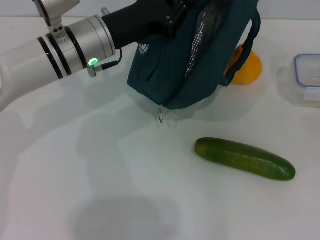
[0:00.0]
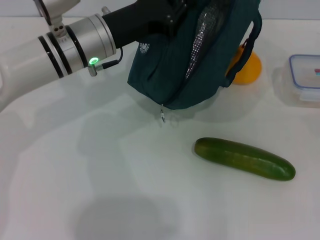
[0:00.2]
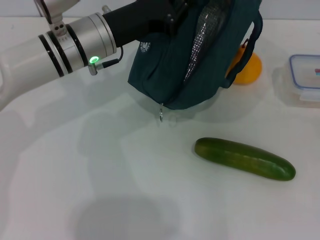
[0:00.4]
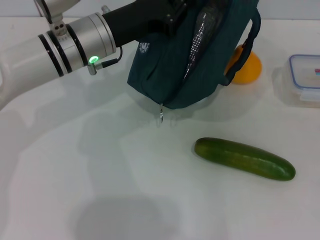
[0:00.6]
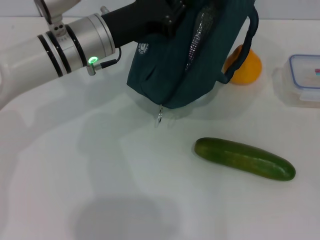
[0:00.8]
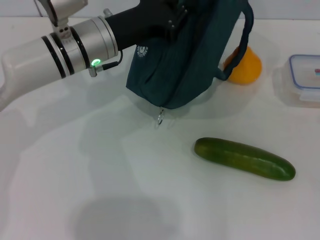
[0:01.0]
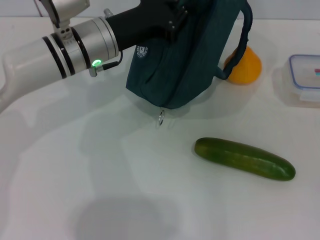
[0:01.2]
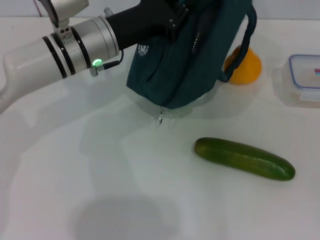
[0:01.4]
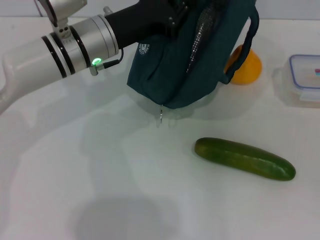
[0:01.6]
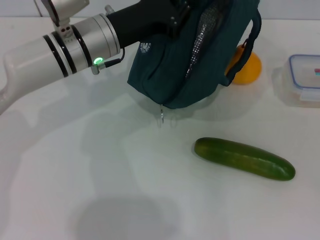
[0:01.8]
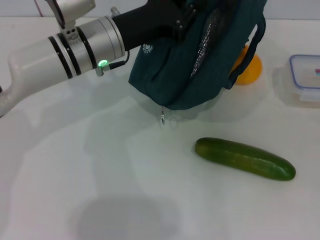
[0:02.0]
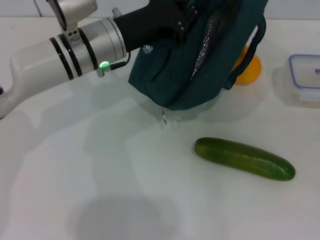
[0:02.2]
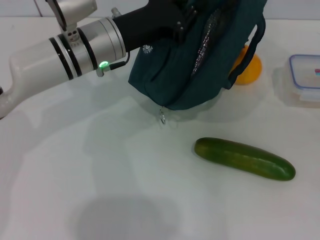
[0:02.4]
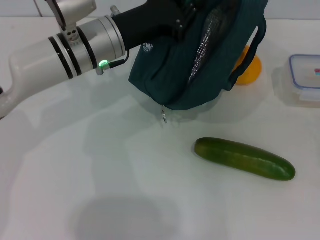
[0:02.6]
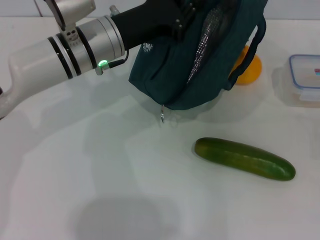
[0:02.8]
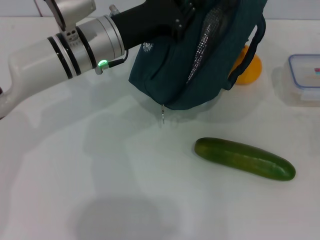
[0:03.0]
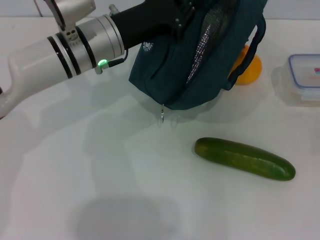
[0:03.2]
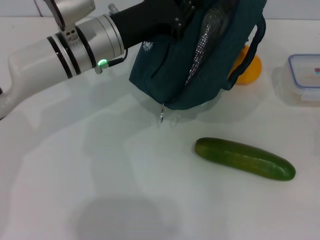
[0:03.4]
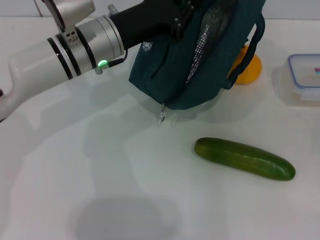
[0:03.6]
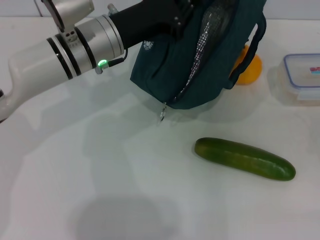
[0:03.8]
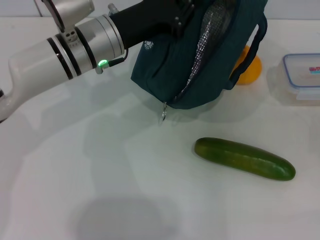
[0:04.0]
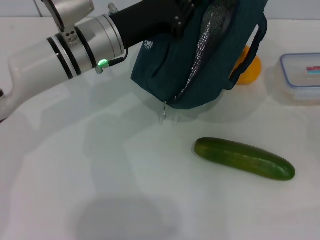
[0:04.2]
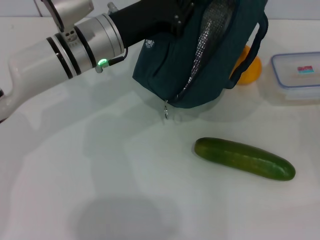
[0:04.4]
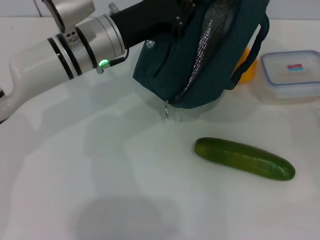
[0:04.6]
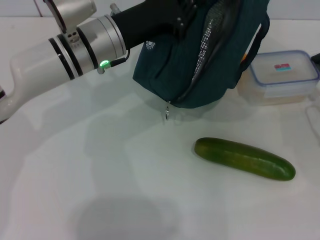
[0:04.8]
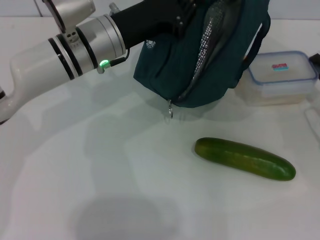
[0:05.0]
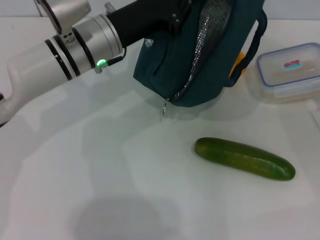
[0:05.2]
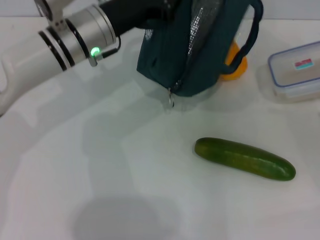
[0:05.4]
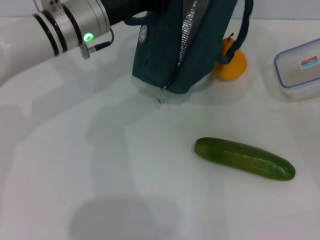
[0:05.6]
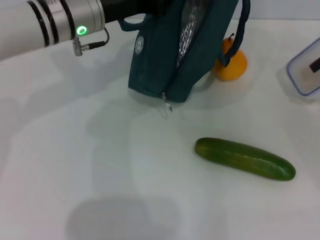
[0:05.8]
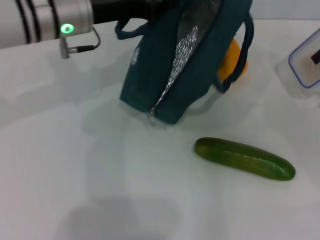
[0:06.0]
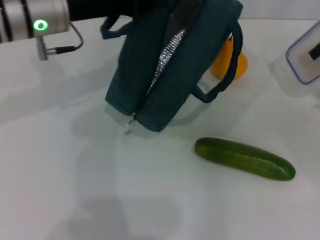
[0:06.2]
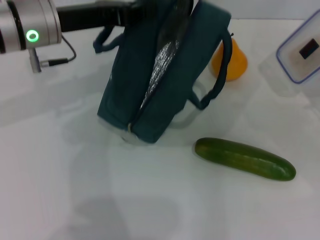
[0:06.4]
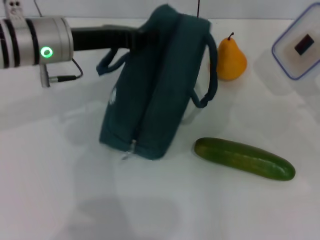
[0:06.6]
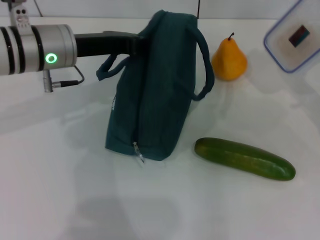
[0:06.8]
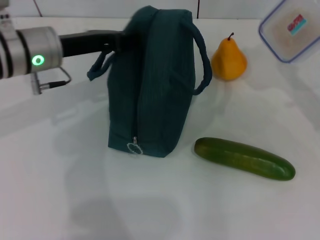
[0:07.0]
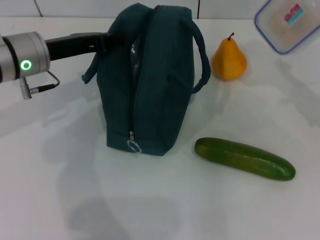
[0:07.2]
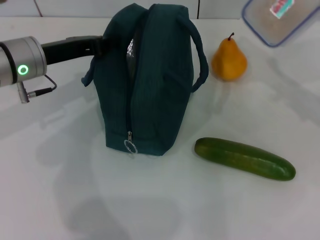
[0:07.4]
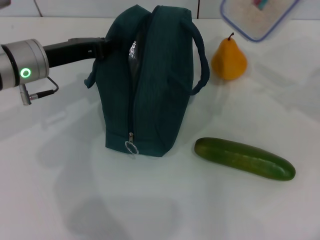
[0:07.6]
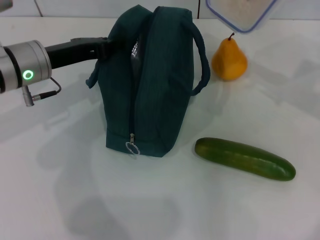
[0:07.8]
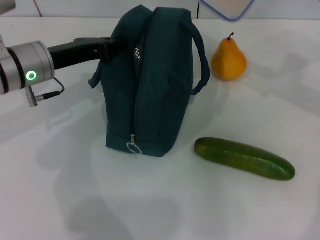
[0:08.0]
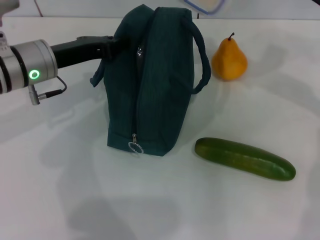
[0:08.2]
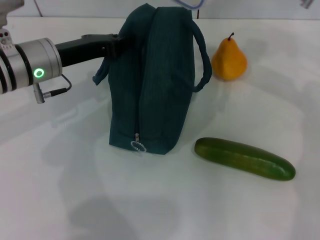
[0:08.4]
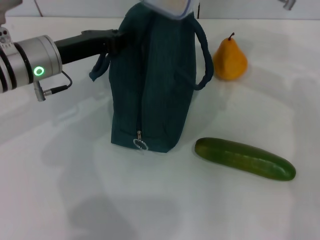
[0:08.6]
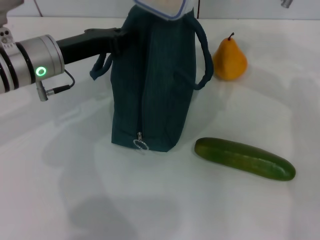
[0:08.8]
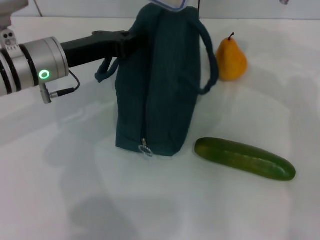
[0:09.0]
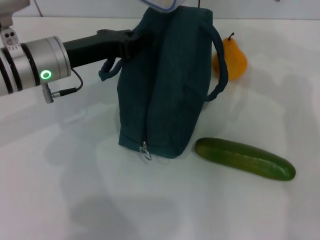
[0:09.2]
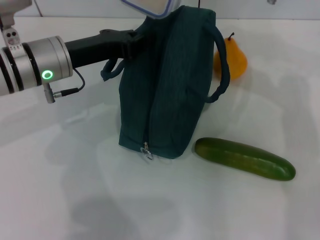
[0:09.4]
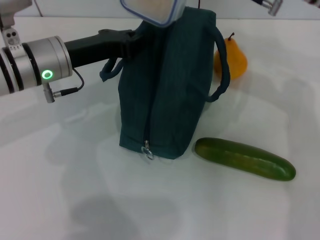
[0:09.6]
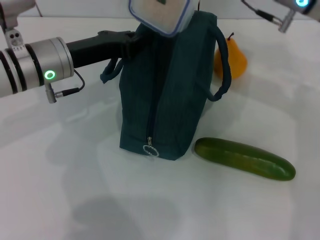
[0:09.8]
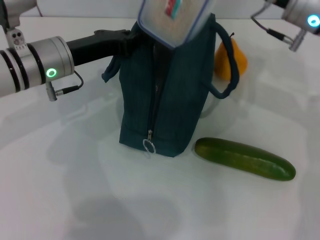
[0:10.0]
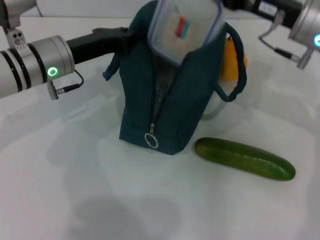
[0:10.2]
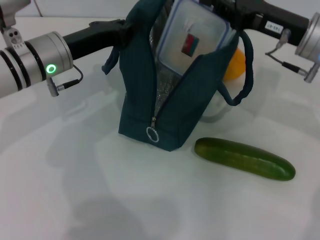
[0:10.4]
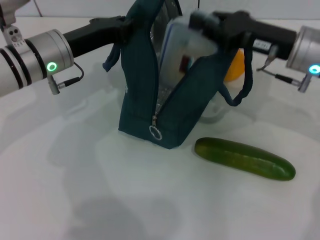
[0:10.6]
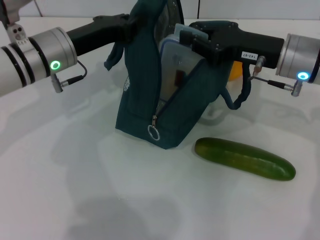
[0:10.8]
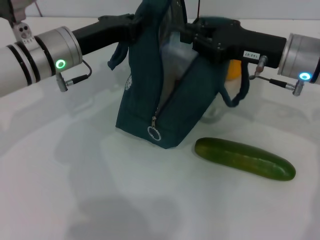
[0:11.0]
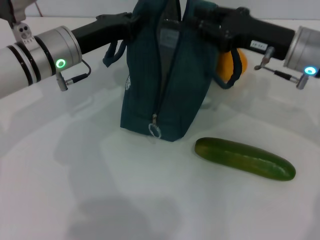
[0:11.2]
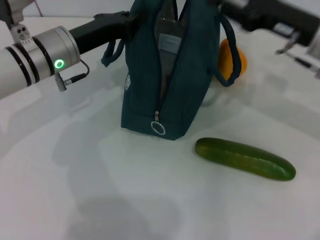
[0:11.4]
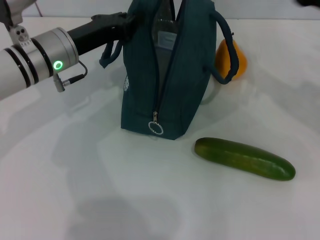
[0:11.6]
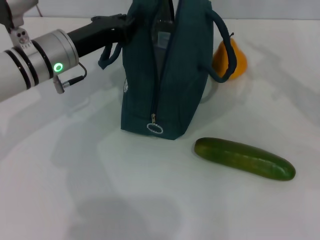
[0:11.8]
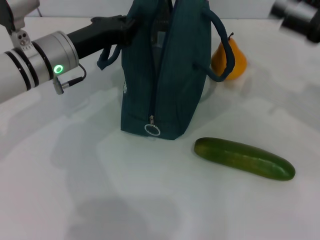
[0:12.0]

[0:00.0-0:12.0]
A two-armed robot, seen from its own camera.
Step, 0:00.0 to 0:05.4: Pick up the lunch box with your right hand.
Step, 0:05.6 to 0:11.4: Place the lunch box into the lunch bag with your right hand.
0:00.0 to 0:01.6: The right gripper heads backward, covering about 10 cm, and opens its fingers.
0:01.6 to 0:03.0: The right gripper goes roughly 10 cm forward.
0:03.0 to 0:04.4: The right gripper closes up.
0:04.4 to 0:06.0: The left gripper moves about 5 cm.
0:06.0 to 0:07.6: The right gripper shifts some 10 cm upward and to the left; the left gripper shifts about 10 cm to the left and downward.
0:07.6 to 0:09.0: The right gripper moves to the left, upward and forward, roughly 15 cm.
0:09.0 to 0:10.4: The right gripper is displaced downward and backward by roughly 10 cm.
0:10.4 to 0:12.0: The right gripper travels to the right by approximately 10 cm, and opens.

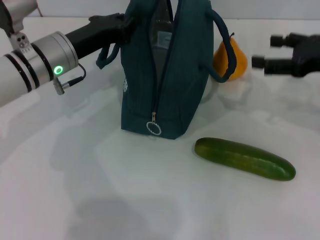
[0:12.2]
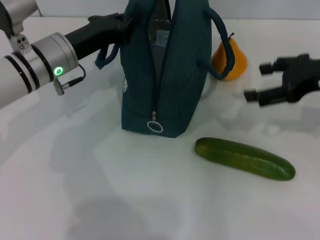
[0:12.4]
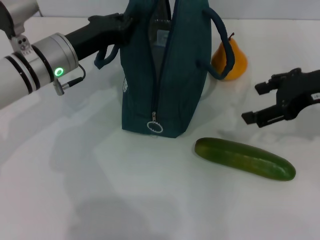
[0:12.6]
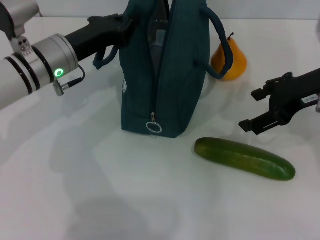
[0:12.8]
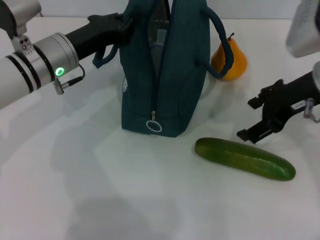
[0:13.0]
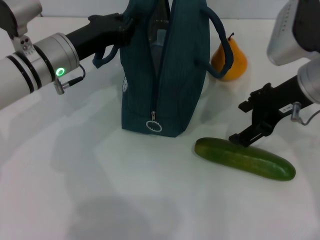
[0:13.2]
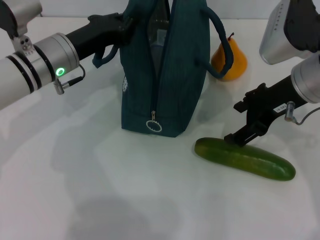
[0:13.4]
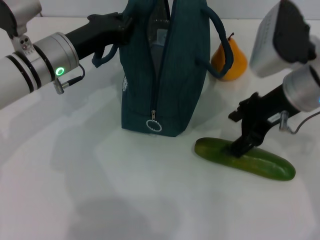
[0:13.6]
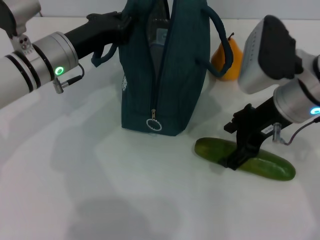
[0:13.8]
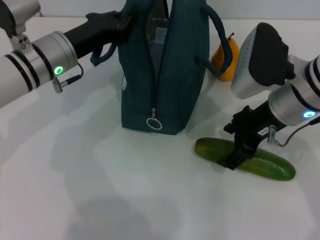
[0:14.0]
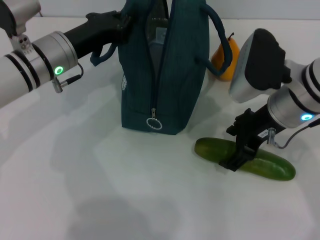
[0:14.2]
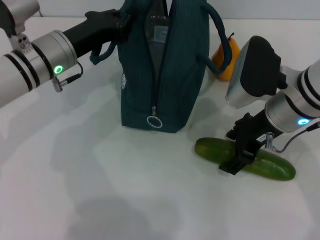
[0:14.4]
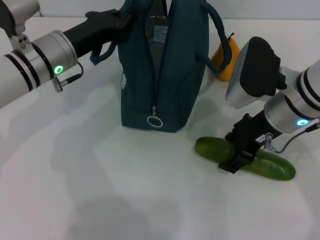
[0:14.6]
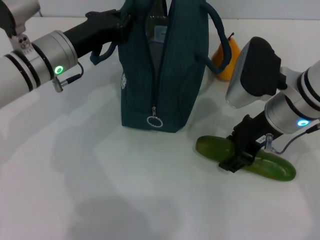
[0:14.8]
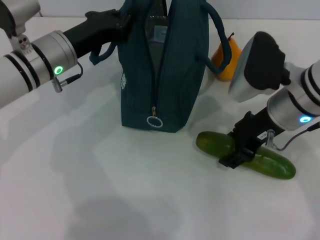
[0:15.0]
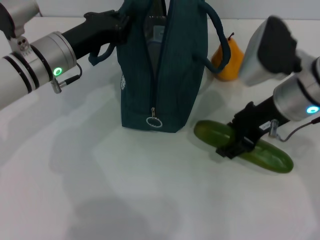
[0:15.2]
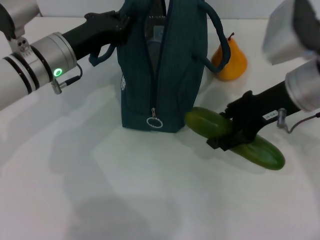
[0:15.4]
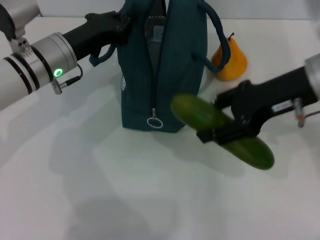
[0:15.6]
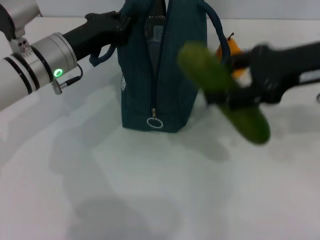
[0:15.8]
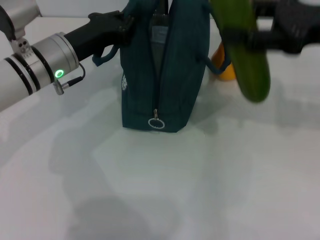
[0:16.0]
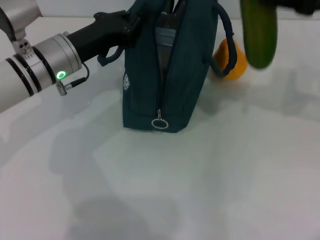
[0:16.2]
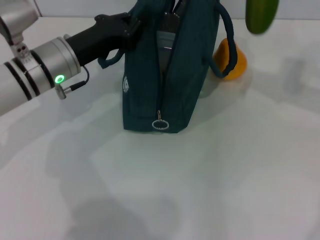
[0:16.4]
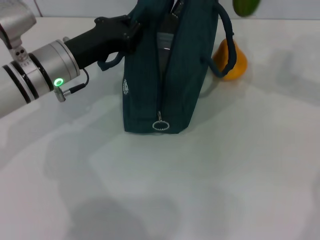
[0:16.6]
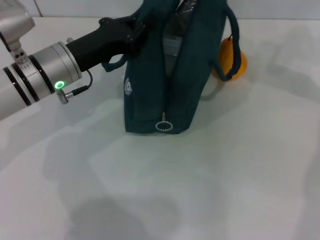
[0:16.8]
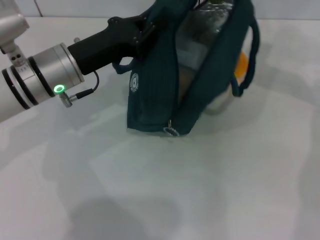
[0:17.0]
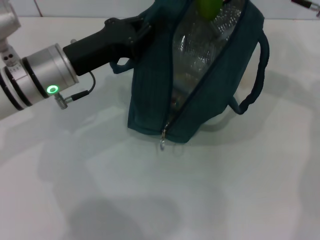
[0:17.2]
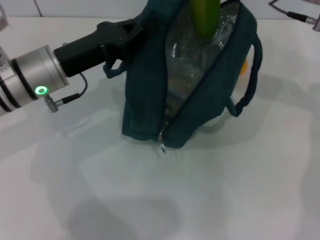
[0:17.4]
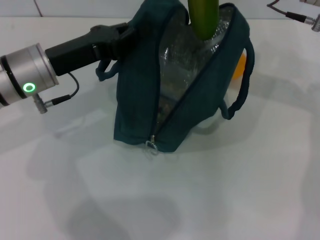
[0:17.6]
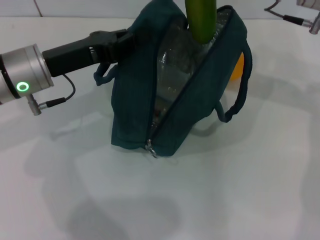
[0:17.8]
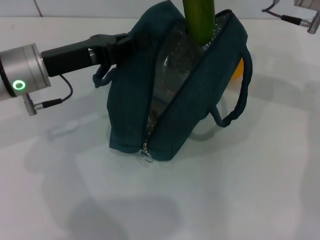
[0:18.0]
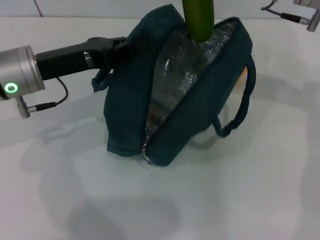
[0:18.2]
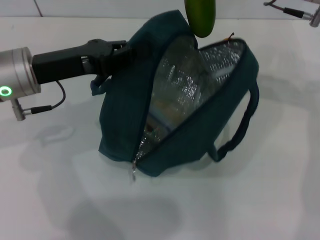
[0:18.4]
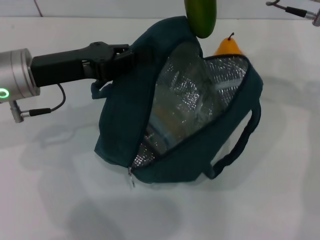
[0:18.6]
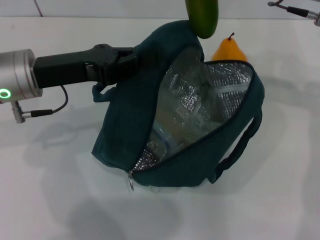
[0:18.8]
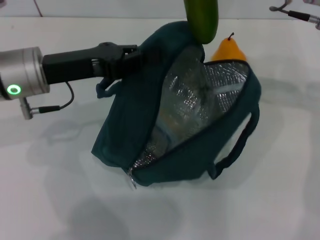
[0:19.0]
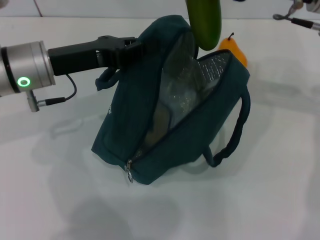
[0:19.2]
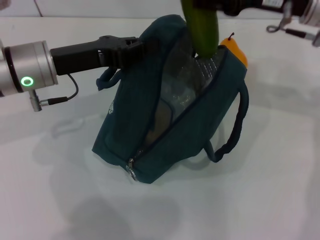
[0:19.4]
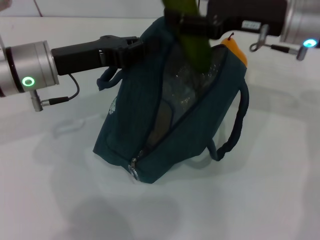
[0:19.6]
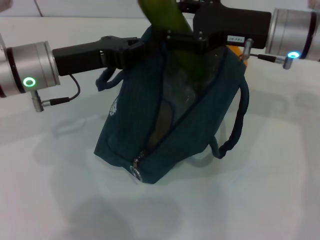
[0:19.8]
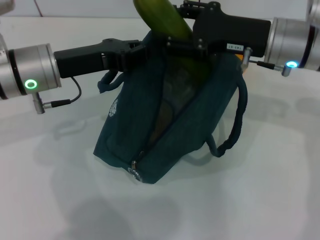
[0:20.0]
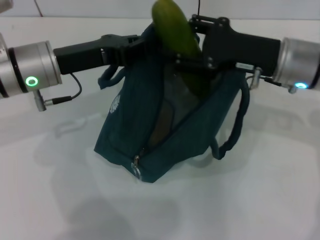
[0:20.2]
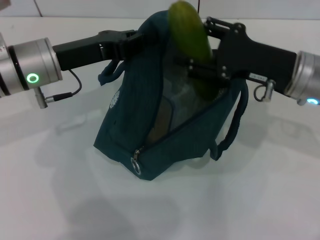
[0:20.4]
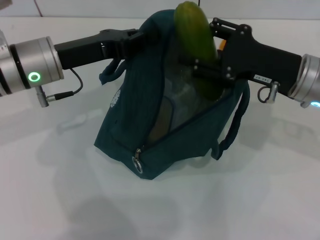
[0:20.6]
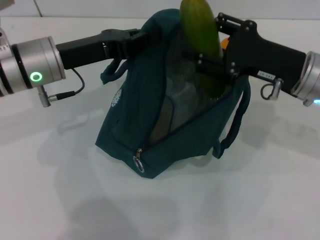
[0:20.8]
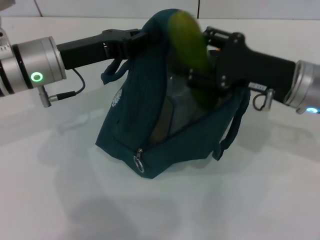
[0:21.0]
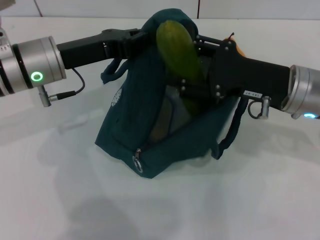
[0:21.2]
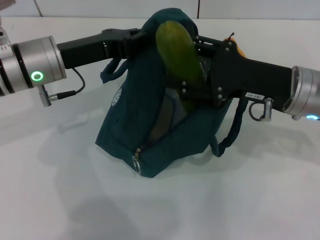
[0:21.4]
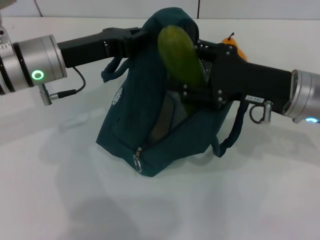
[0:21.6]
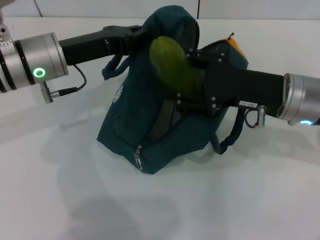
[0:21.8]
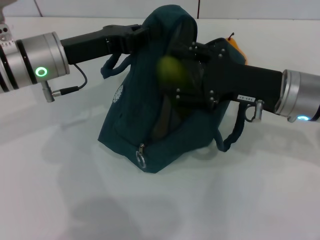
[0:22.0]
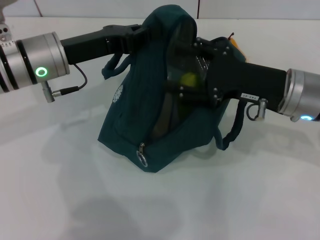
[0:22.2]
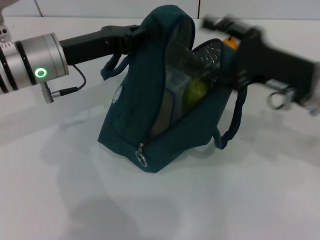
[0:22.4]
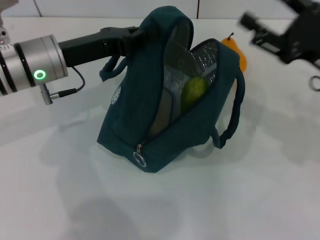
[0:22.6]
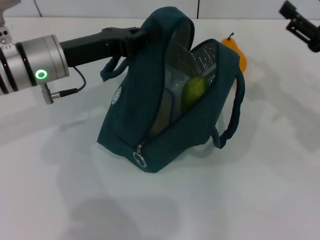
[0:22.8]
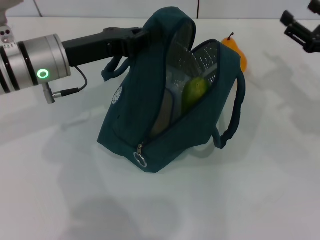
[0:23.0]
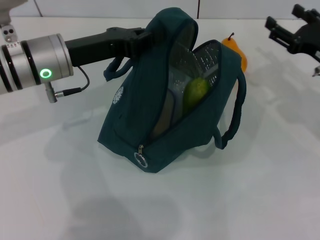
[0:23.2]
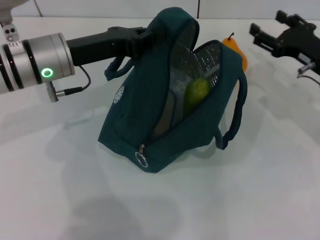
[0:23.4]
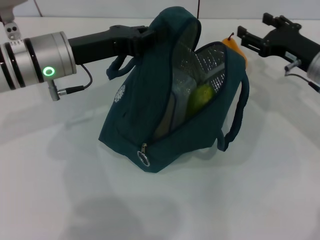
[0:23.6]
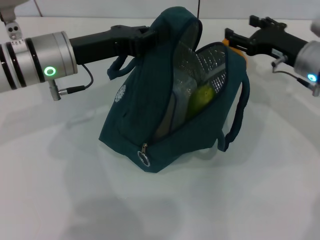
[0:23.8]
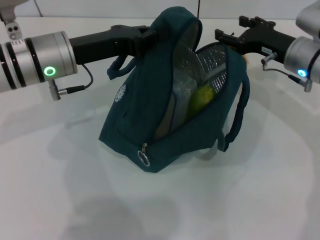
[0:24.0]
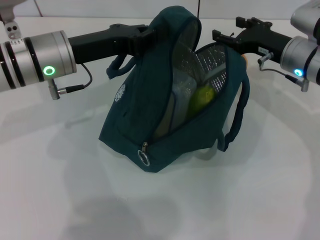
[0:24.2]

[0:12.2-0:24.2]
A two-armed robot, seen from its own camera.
Step, 0:12.2 to 0:14.6: Pick up the cucumber with your right hand.
Step, 0:15.0 to 0:22.4: Put the cucumber into the lunch bag with your right hand.
0:12.2 to 0:13.8: The right gripper goes about 15 cm to the left.
0:13.8 to 0:15.2: The grippers move only a little.
0:15.2 to 0:16.6: The right gripper shifts roughly 15 cm to the right, upward and forward.
0:16.6 to 0:18.2: The right gripper heads to the left, covering about 5 cm; the left gripper moves approximately 5 cm.
0:18.2 to 0:19.8: The right gripper travels downward by some 5 cm.
0:19.8 to 0:21.2: The right gripper travels backward by approximately 5 cm.
0:21.2 to 0:22.6: The right gripper heads to the right, covering about 5 cm.
0:22.6 to 0:24.2: The right gripper shifts approximately 10 cm forward.
